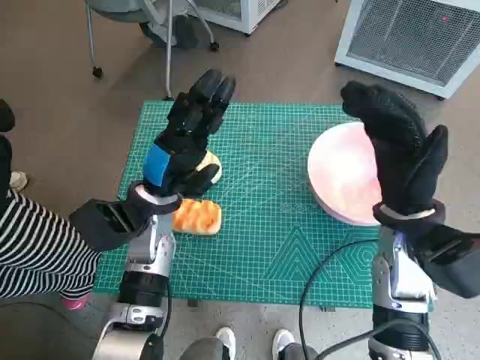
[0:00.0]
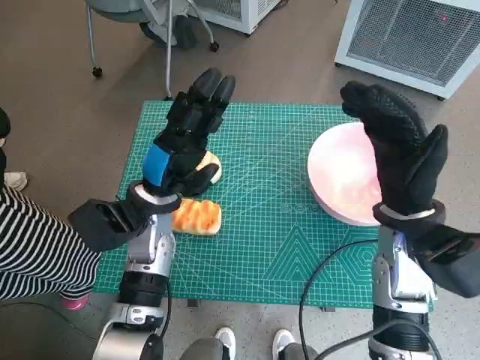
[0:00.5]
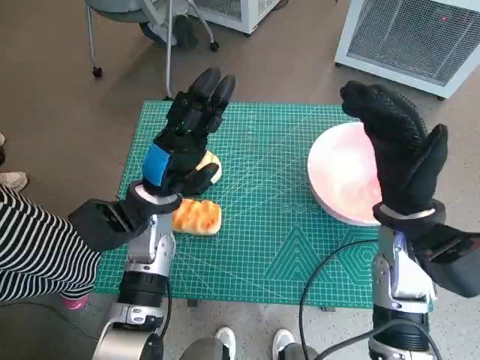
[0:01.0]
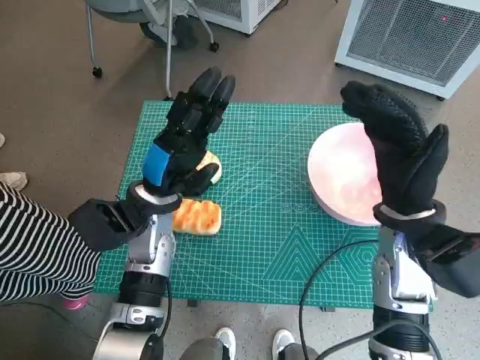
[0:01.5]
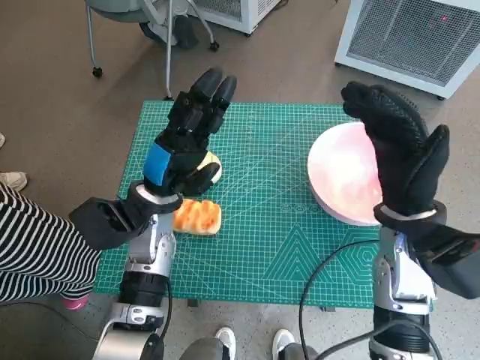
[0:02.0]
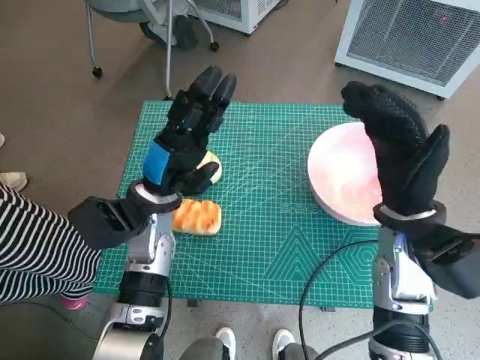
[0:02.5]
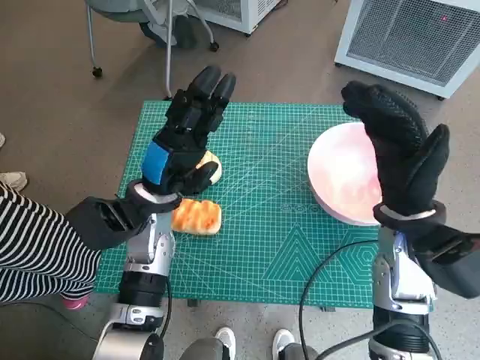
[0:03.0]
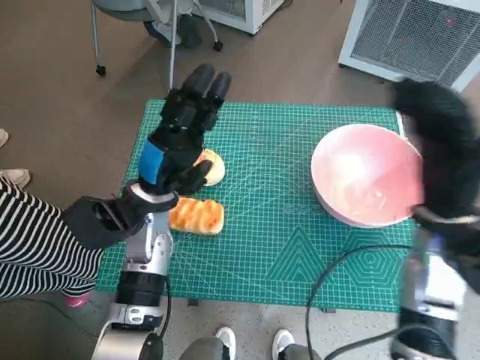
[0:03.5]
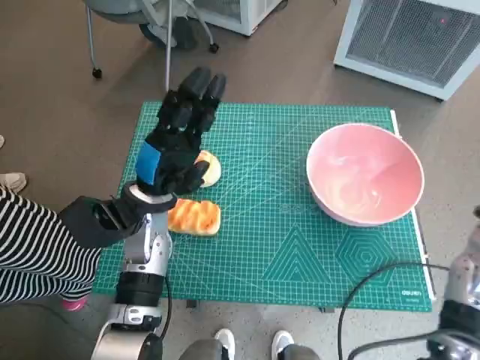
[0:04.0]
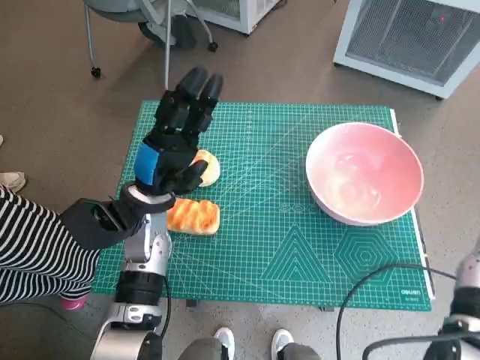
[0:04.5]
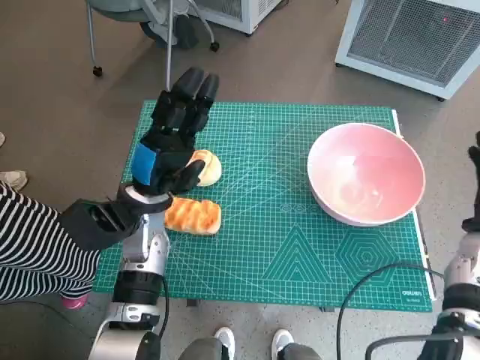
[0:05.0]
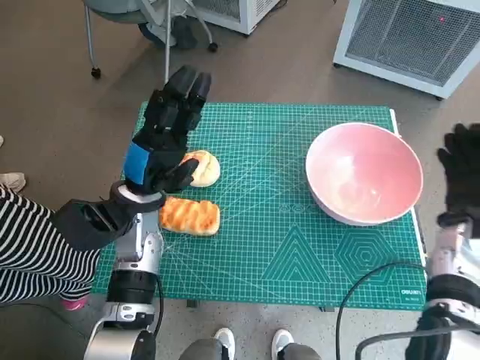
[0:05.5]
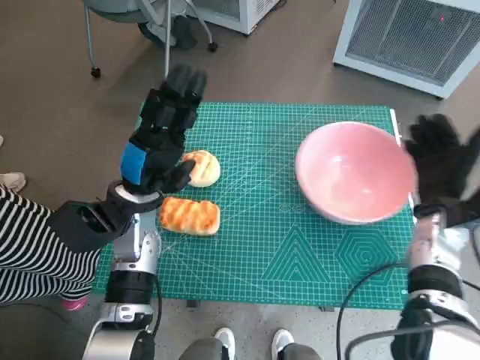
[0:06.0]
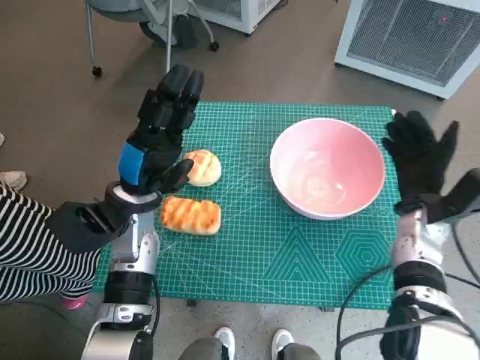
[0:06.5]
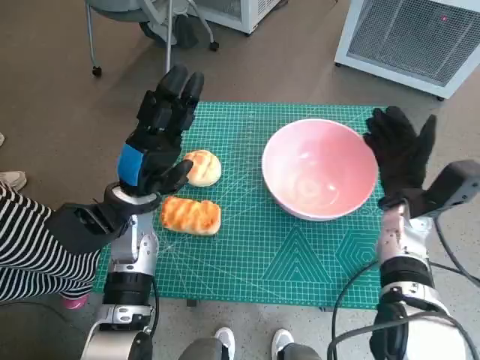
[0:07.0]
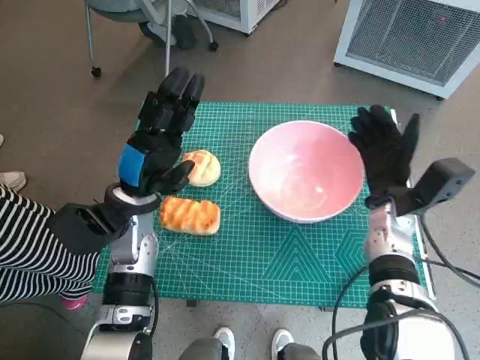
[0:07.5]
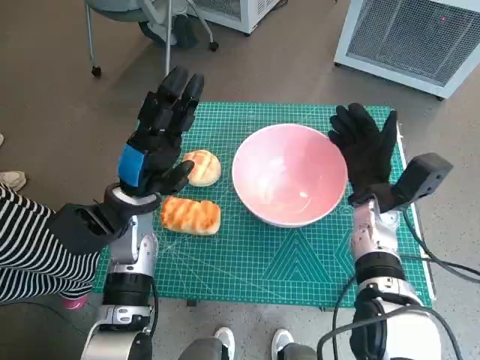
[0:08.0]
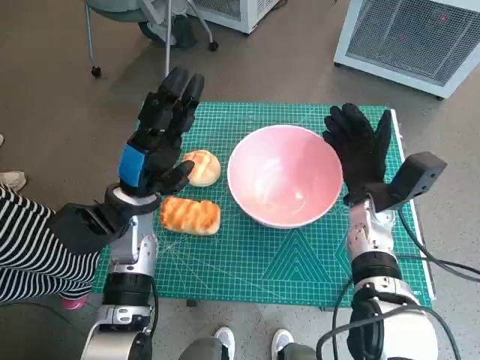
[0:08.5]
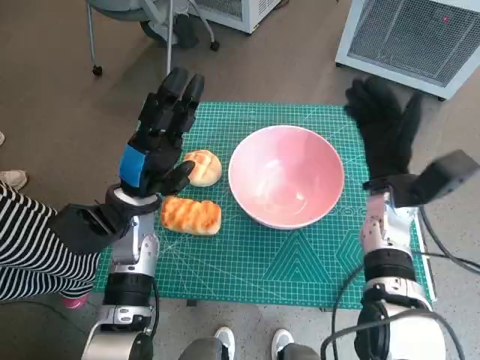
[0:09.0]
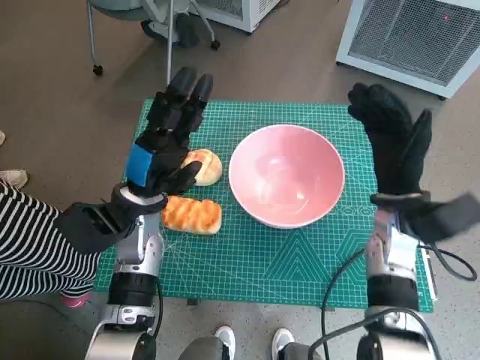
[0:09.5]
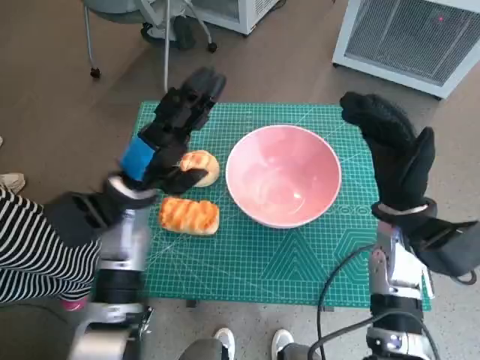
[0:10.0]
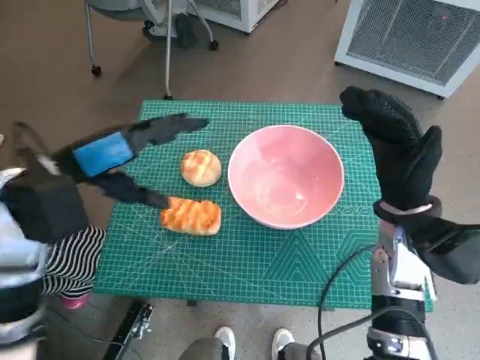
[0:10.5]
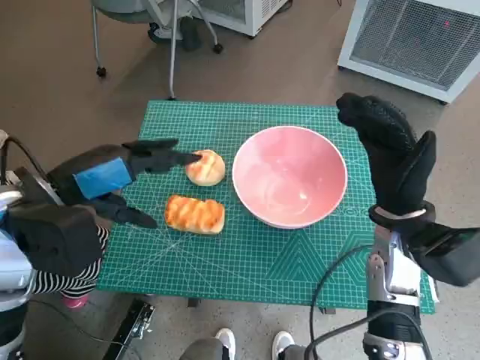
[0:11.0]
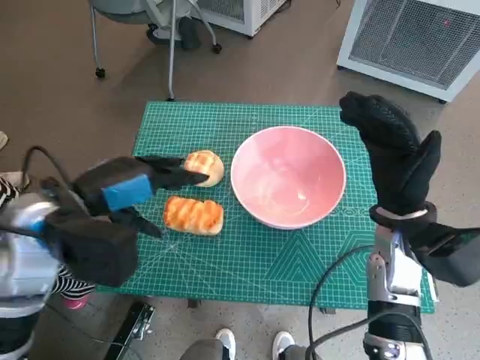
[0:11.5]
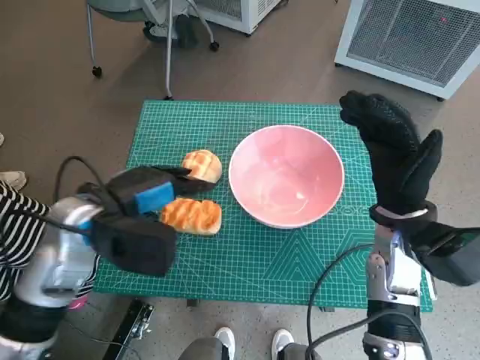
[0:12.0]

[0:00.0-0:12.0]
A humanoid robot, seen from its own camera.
Task of the whole recording: Push the bowl into the center of the table and put the bread into the bowl.
Step, 0.0 to 9.0 s: Move the pink bowl to the center of table with right hand.
2.0 to 4.0 s: The right hand shifts approximately 10 cm to the right.
4.0 to 6.0 s: The right hand moves downward, roughly 10 cm.
6.0 to 8.0 s: The right hand moves to the left, roughly 10 cm.
8.0 to 10.0 s: The right hand is displaced upward by roughly 5 cm.

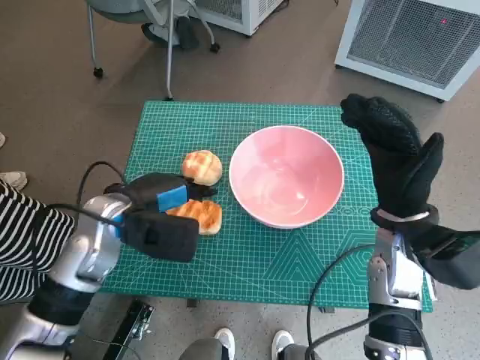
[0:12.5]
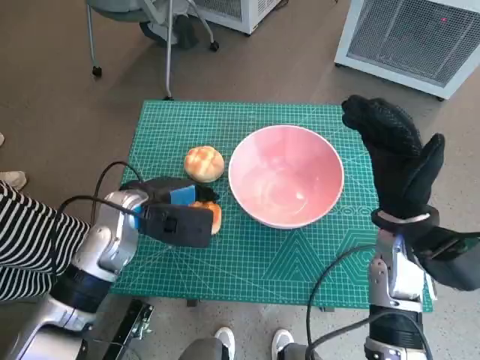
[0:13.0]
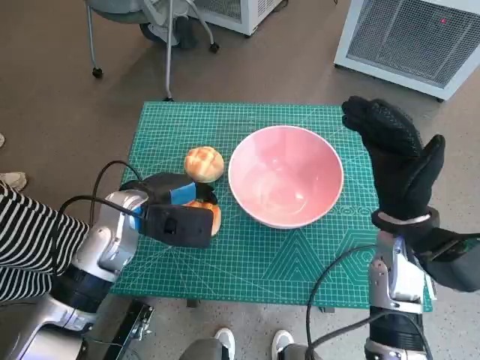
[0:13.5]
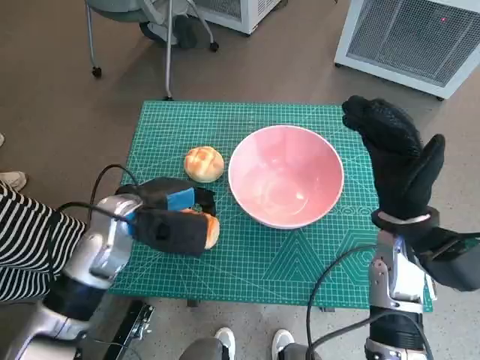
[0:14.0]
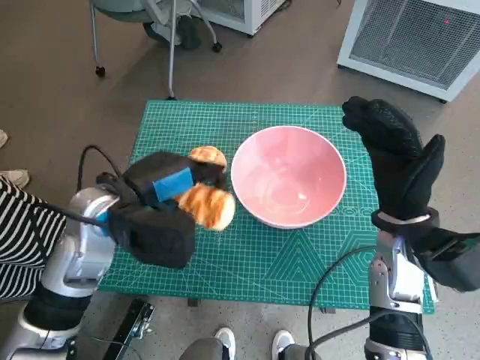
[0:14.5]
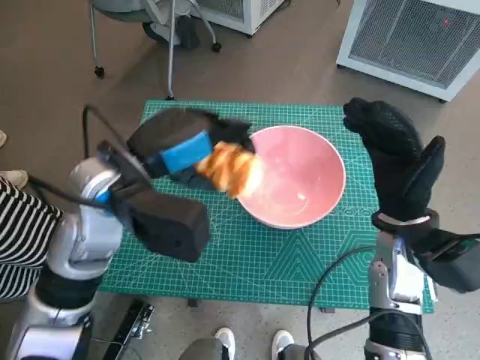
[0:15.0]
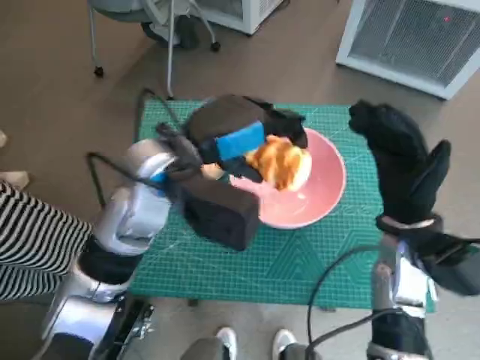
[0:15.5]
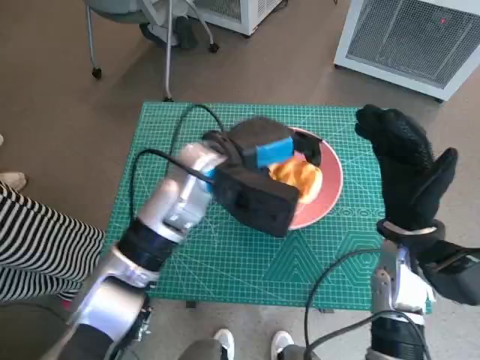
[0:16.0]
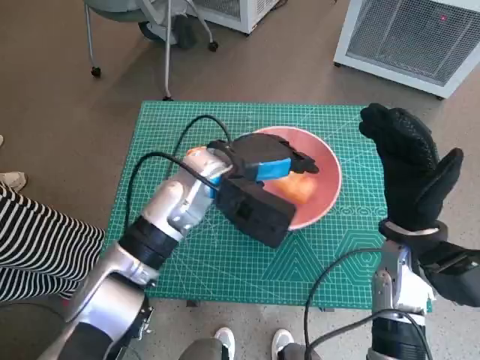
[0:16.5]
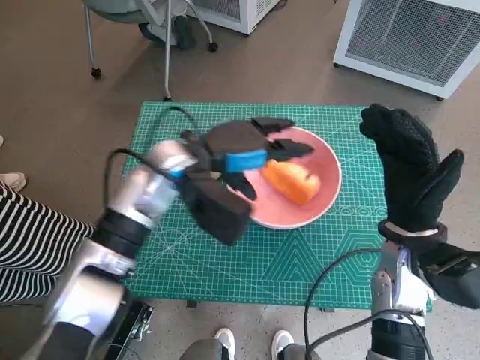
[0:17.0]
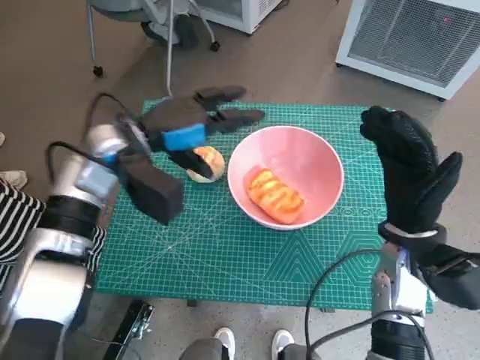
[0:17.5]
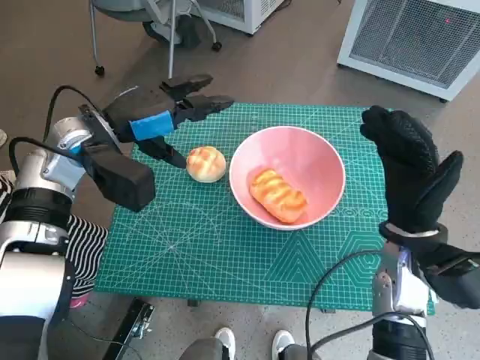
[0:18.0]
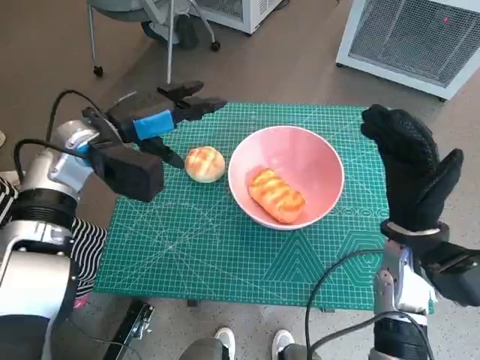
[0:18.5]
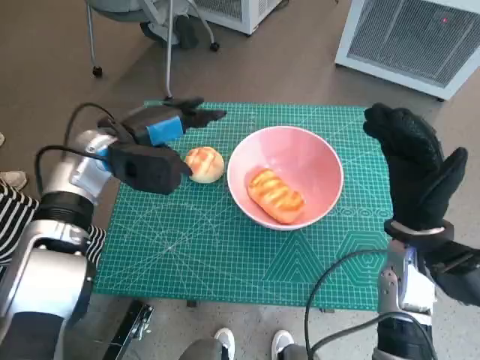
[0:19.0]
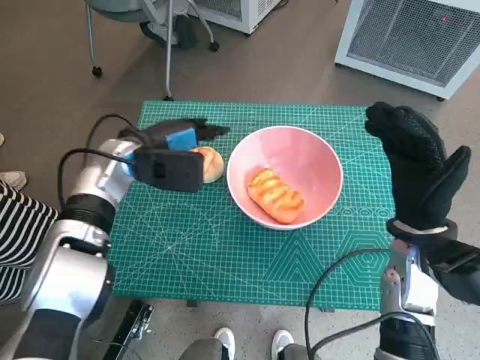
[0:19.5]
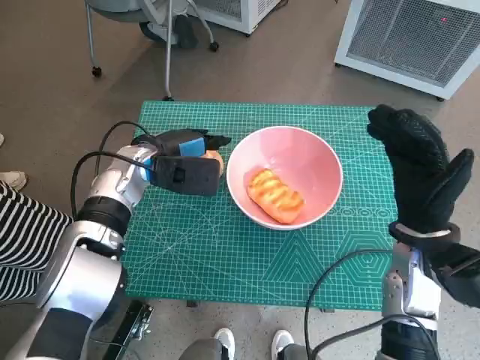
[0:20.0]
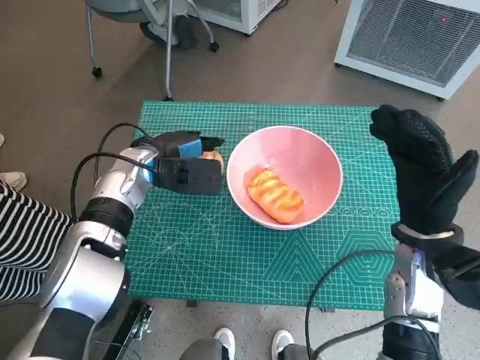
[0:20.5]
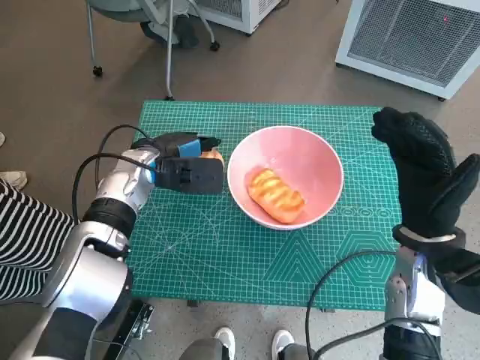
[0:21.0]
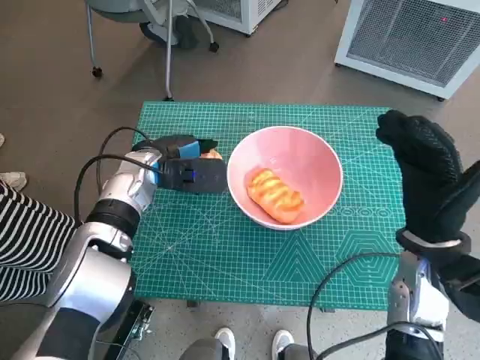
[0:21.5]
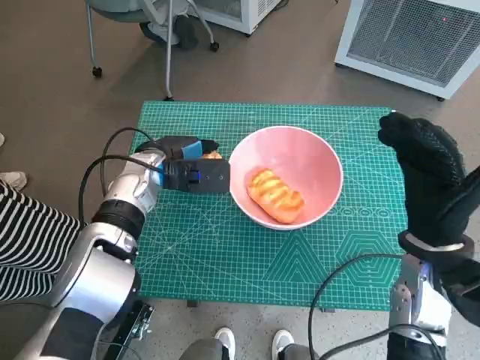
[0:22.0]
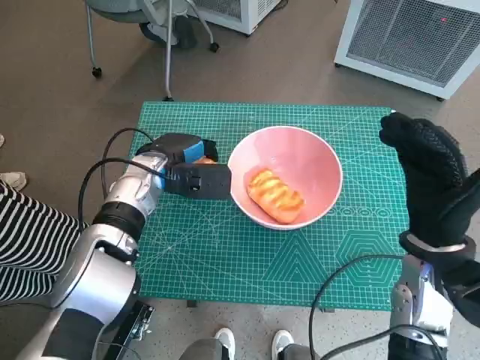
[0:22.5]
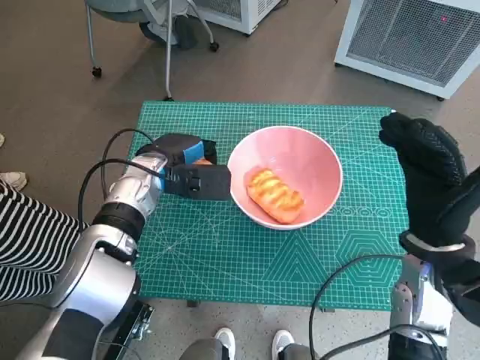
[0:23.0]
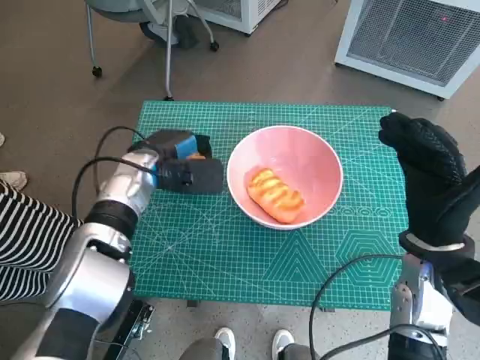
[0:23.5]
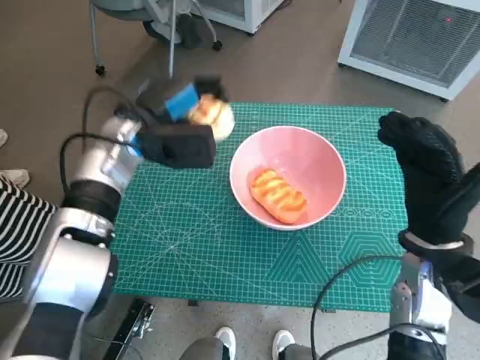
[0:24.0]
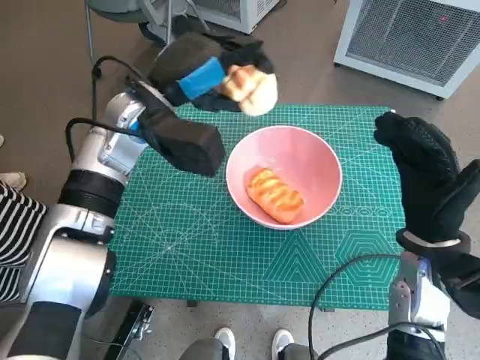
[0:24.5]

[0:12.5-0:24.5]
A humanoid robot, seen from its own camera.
Task of the whole recording: Push the bowl into the center of the table and put the bread into the bowl.
Step, 14.0 to 16.5 s: Place the long bread in pink bowl with left hand.
Step, 17.0 to 22.0 s: Grasp the round bread with left hand.
12.5 to 14.5 s: The hands stay close to where they were, moving slightly.
14.5 to 16.5 s: The left hand heads to the right and forward, covering about 15 cm.
16.5 to 18.5 s: The left hand heads to the left, covering some 15 cm.
18.5 to 20.5 s: The left hand travels downward by about 5 cm.
20.5 to 22.5 s: There are only small adjustments of the hands.
22.5 to 24.5 s: The left hand shifts approximately 10 cm upward.

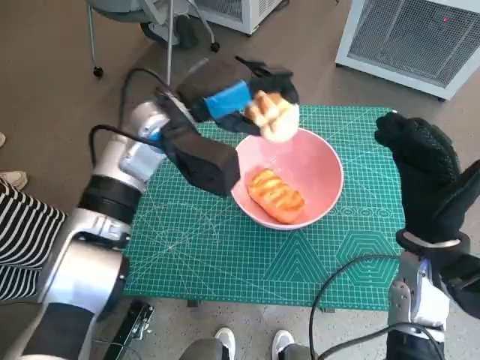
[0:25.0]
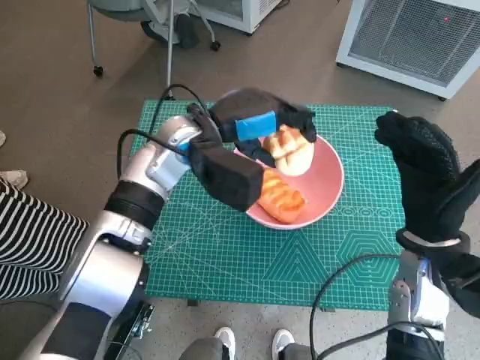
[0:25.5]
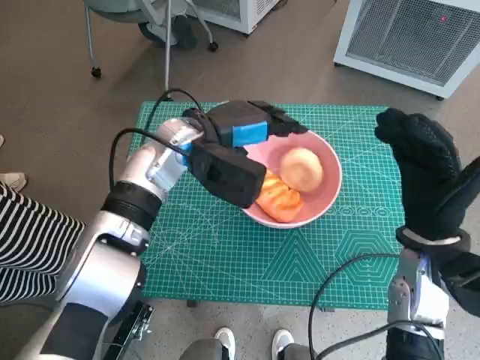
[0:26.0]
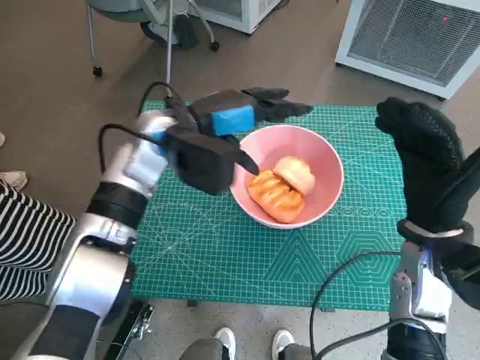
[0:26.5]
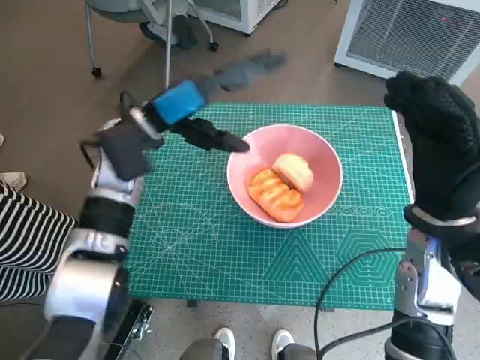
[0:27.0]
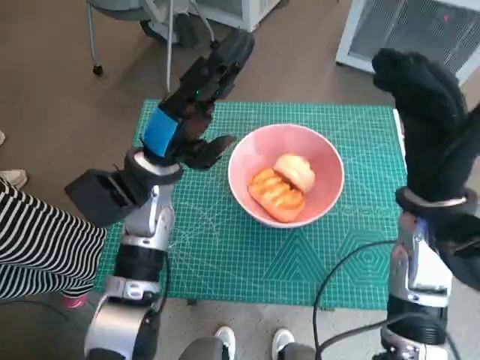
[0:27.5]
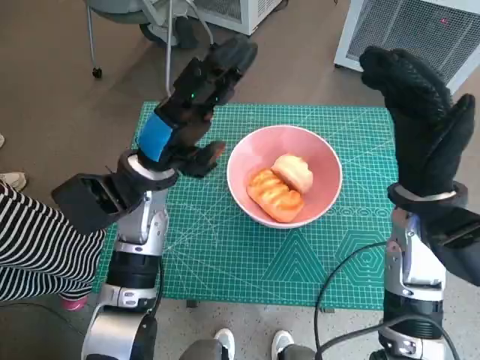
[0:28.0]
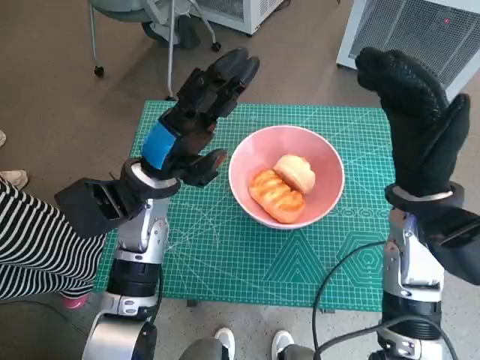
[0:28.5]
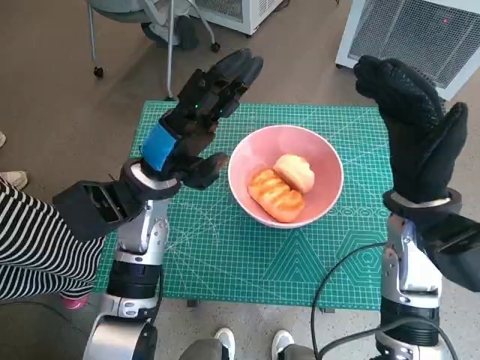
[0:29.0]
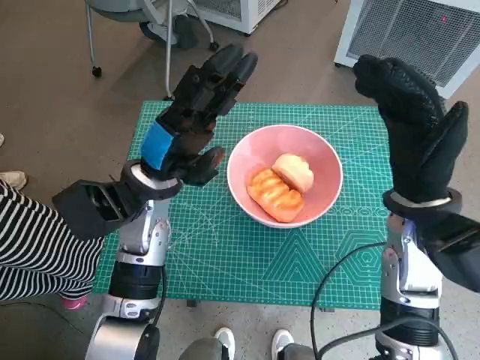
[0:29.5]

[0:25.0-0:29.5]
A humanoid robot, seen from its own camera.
Task of the whole recording: Push the bowl into the center of the table and put the bread into the bowl.
27.0 to 29.5 s: The left hand goes roughly 5 cm backward.
